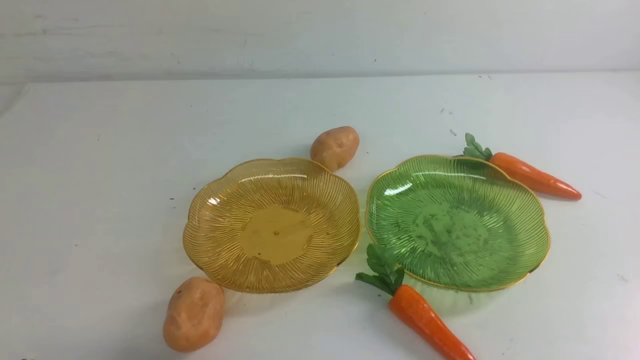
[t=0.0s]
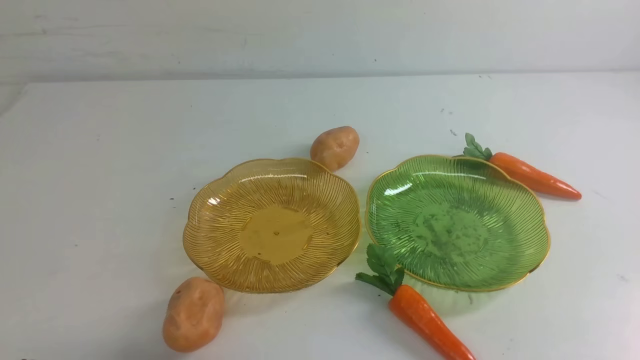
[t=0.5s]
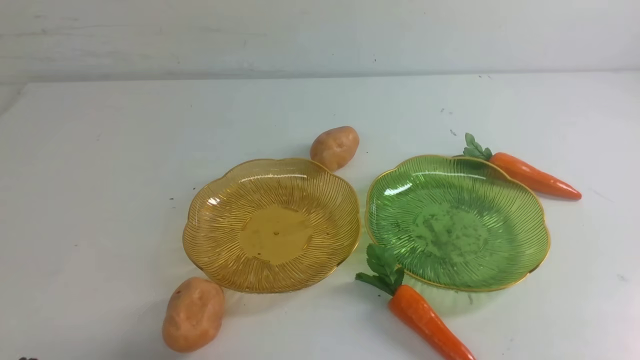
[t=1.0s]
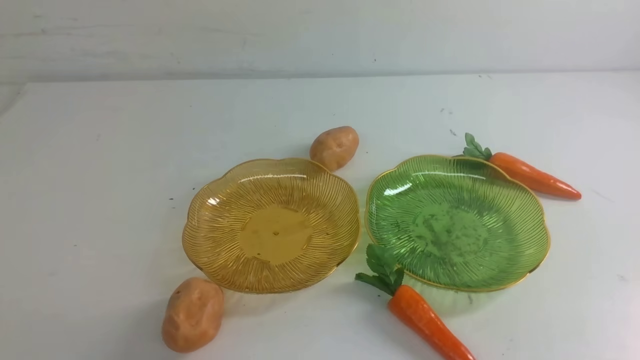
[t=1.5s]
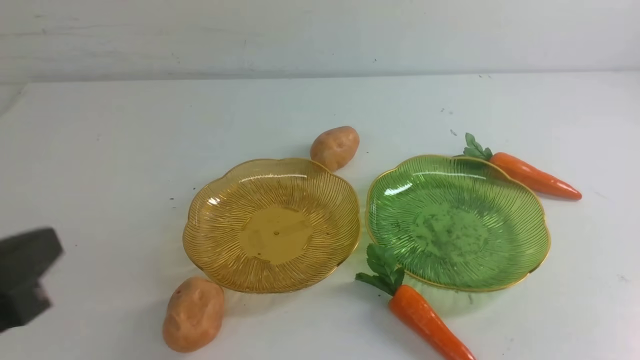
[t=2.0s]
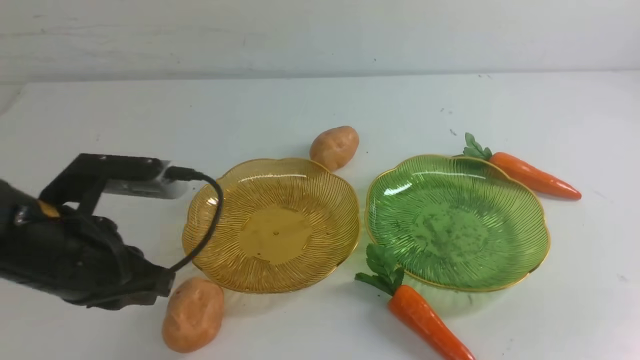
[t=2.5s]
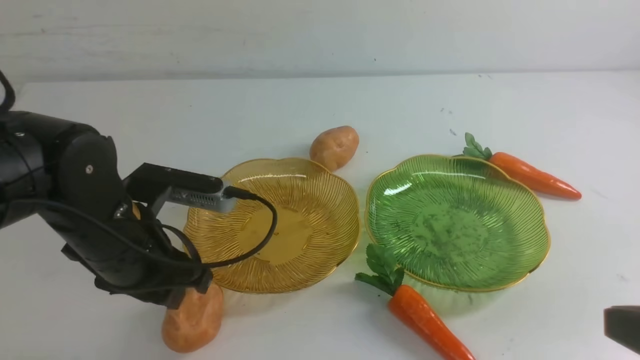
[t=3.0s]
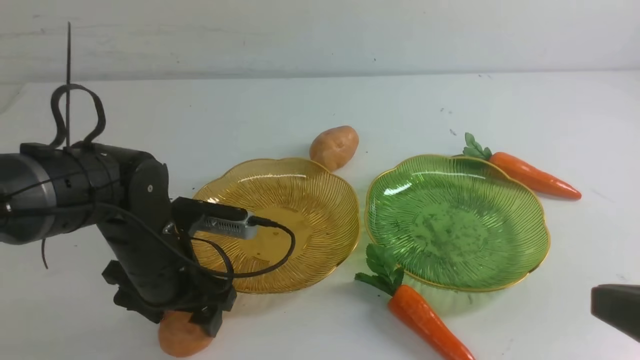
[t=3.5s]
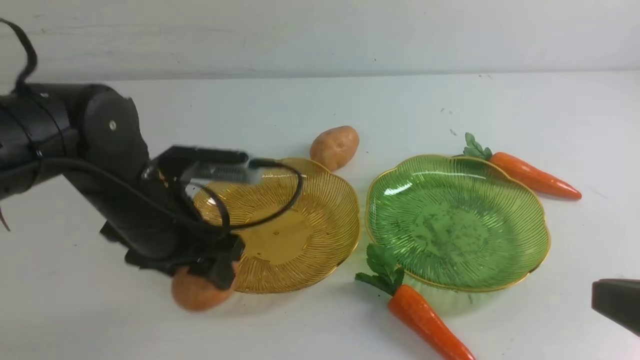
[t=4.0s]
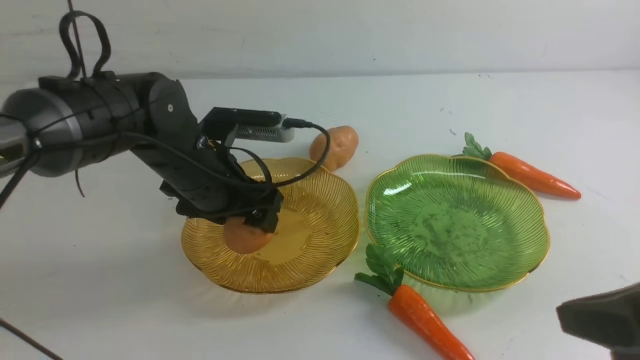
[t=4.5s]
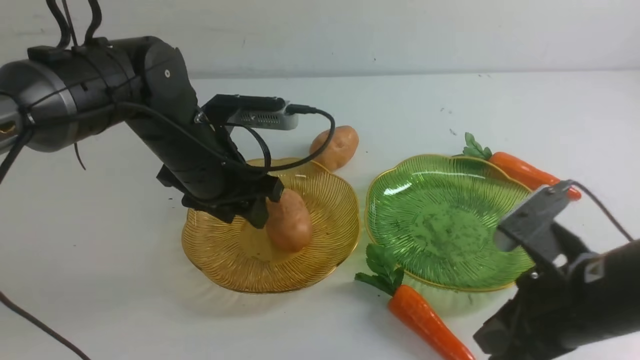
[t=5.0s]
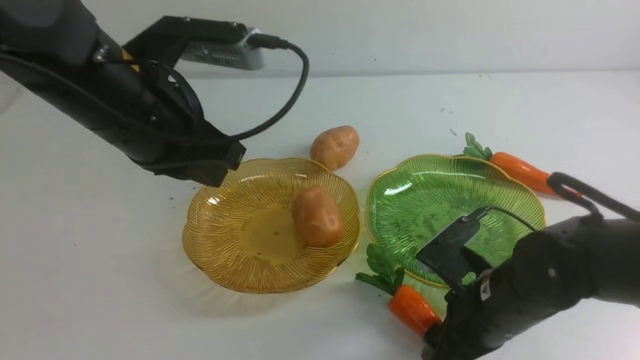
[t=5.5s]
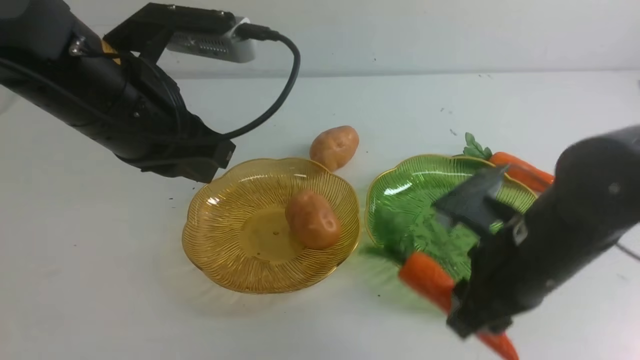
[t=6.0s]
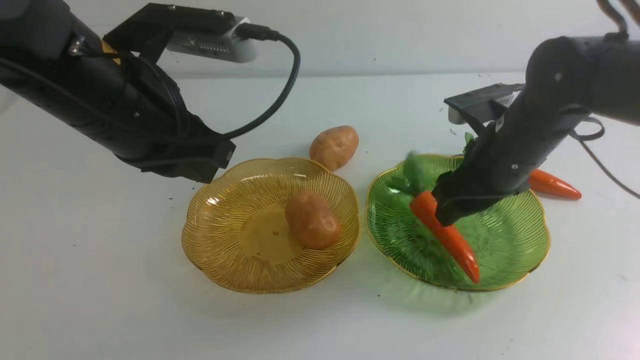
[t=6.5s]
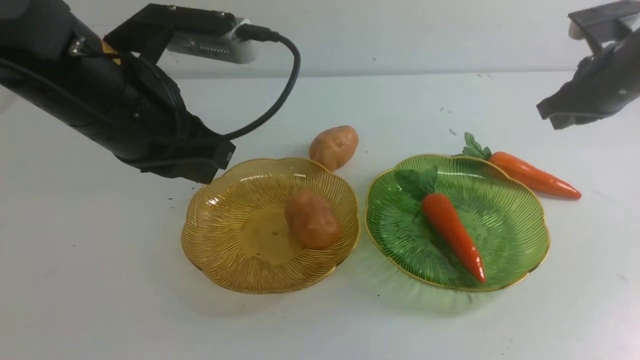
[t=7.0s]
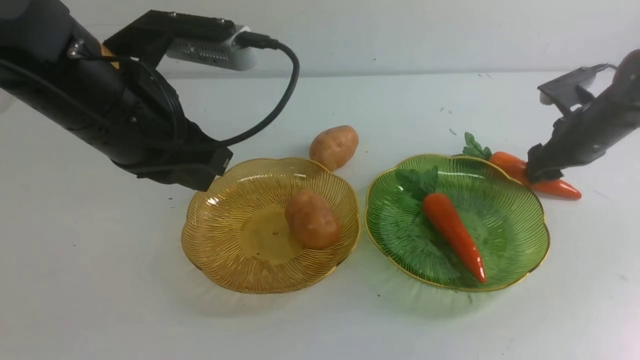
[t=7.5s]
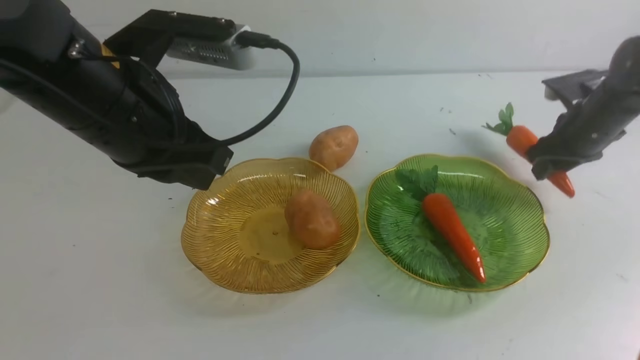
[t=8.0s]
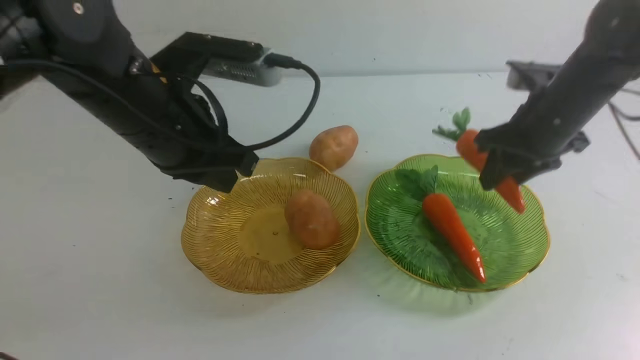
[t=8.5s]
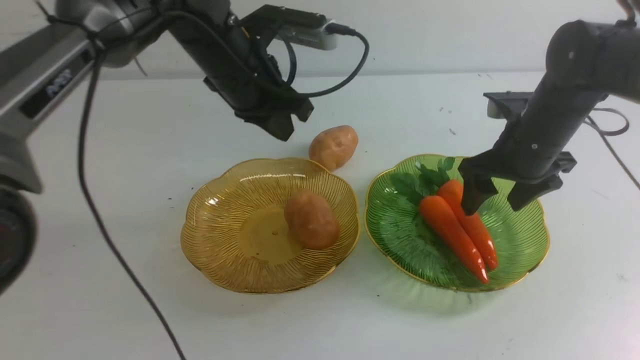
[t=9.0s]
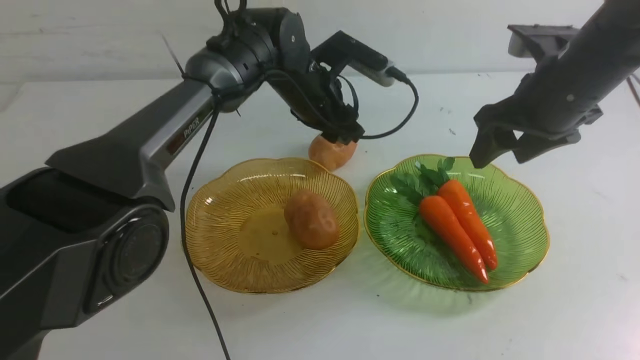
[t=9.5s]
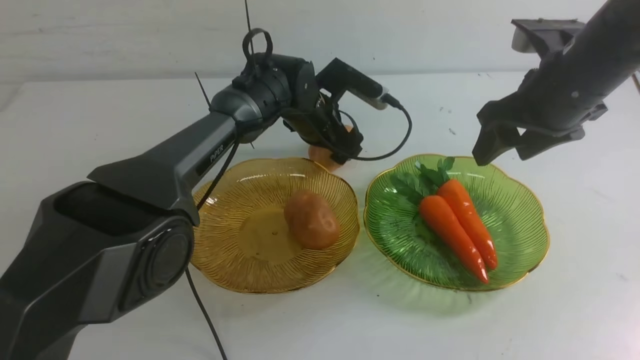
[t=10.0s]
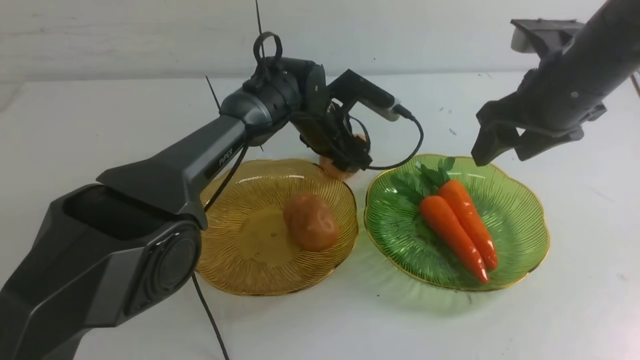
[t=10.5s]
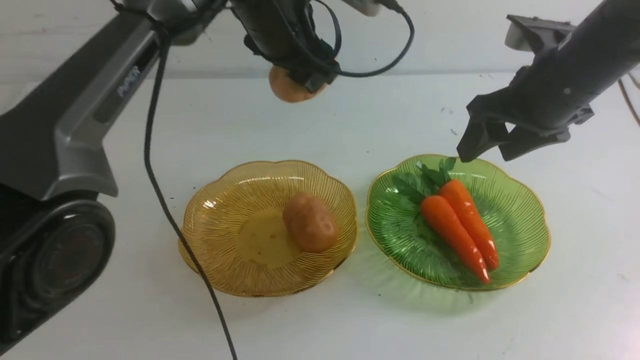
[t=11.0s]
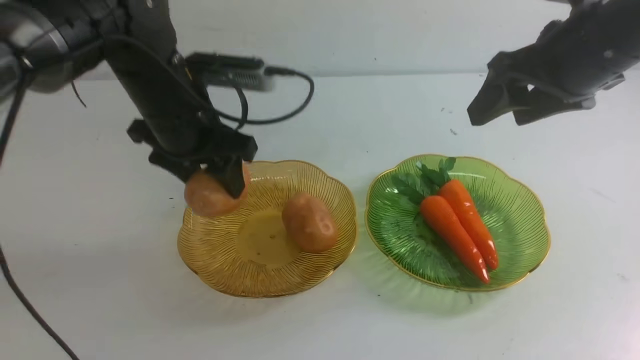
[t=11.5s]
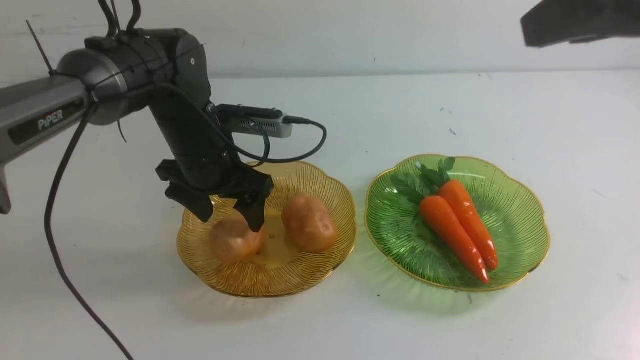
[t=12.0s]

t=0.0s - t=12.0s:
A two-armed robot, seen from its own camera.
Step, t=0.0s - t=4.5s: Grab a potato with your left arm and put it on the left plate.
Step, t=5.0s - t=8.5s: use the right arm to grab a carrot and put it into the right plate.
t=0.0s - t=2.0s: The left gripper goes roughly 15 cm upward and forward.
t=2.0s - t=4.0s: The left gripper is displaced forward and to the right by roughly 20 cm, and opens. The right gripper shifts approximately 15 cm forward, upward and to the left.
t=4.0s - t=6.0s: The right gripper moves forward, about 25 cm, and opens; the left gripper shifts about 15 cm upward and backward, and closes.
t=6.0s - t=8.0s: The right gripper moves approximately 10 cm to the right and comes back. The left gripper goes about 10 cm forward.
t=8.0s - t=10.0s: The left gripper travels forward, to the right and downward by about 20 cm, and opens up; the right gripper shifts approximately 10 cm upward.
t=10.0s - t=12.0s: The left gripper shifts some 35 cm backward, upward and to the left, and closes. Meanwhile the right gripper travels backward by some 30 cm, and closes its fingers.

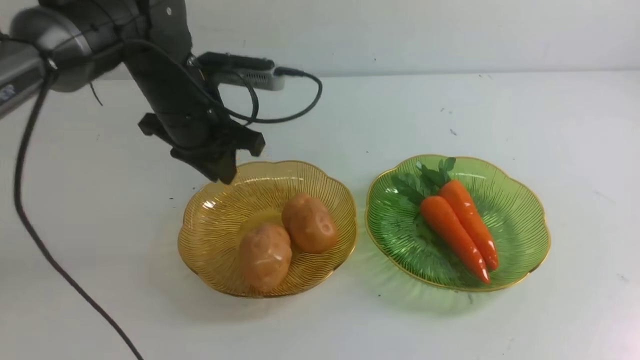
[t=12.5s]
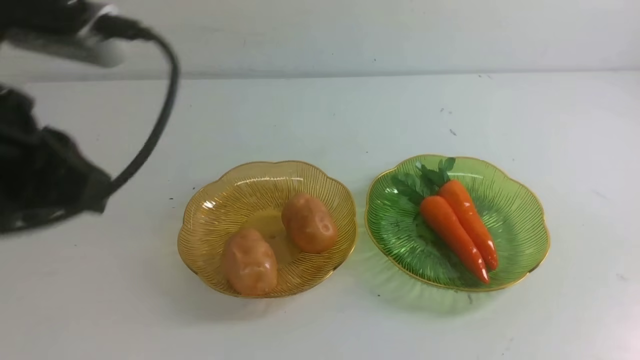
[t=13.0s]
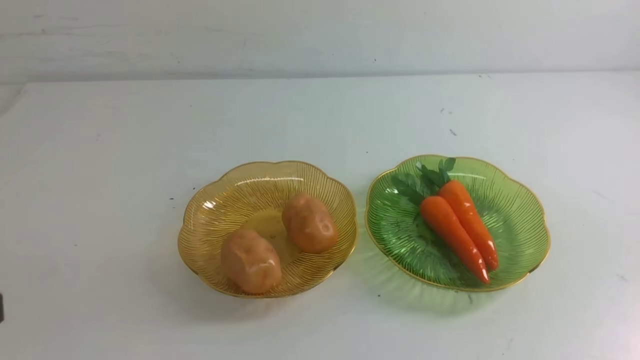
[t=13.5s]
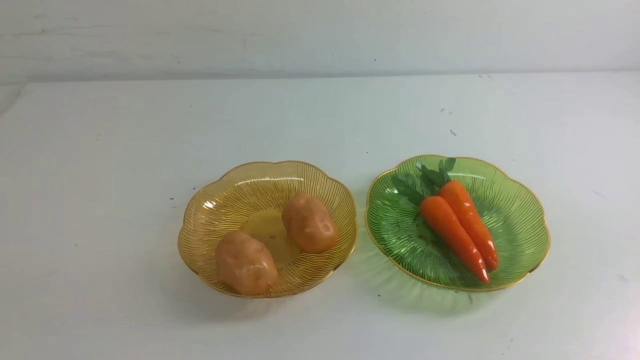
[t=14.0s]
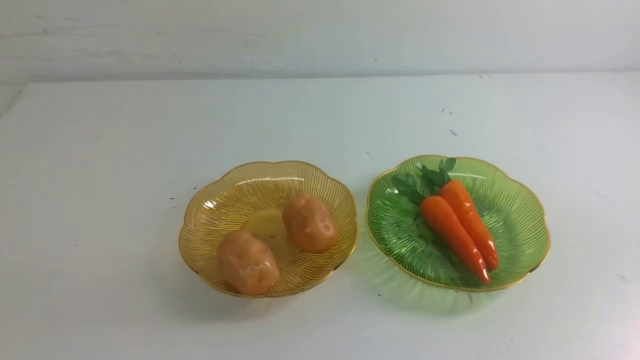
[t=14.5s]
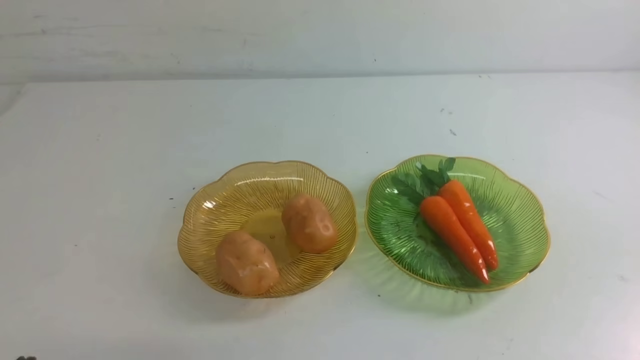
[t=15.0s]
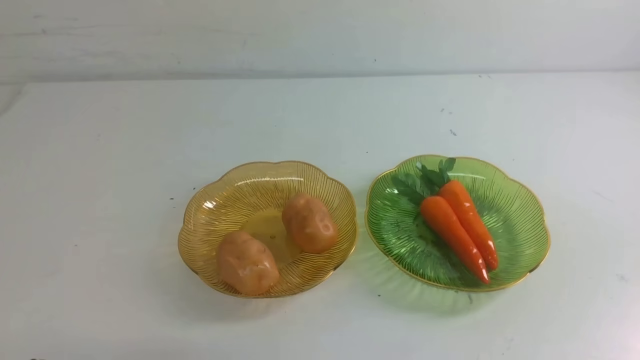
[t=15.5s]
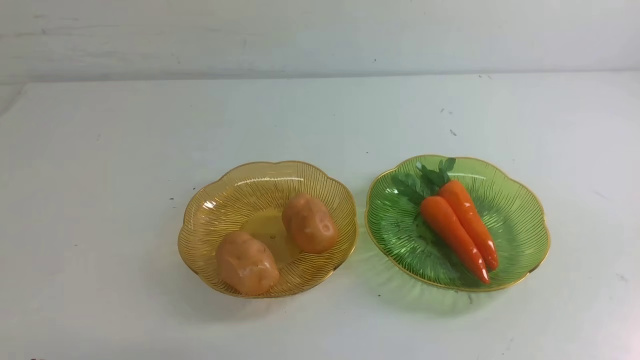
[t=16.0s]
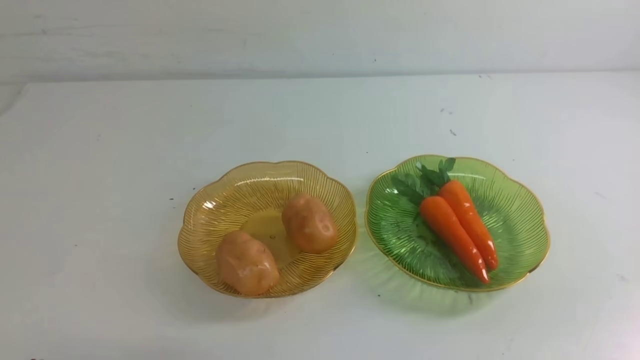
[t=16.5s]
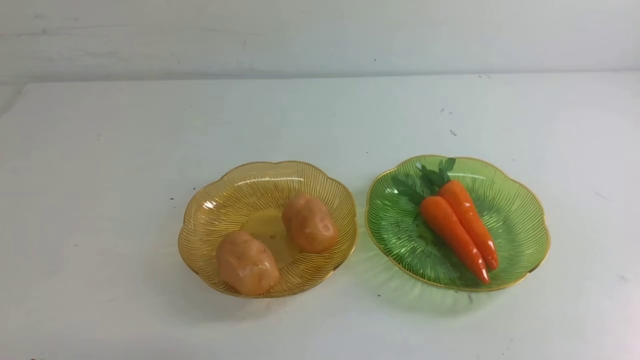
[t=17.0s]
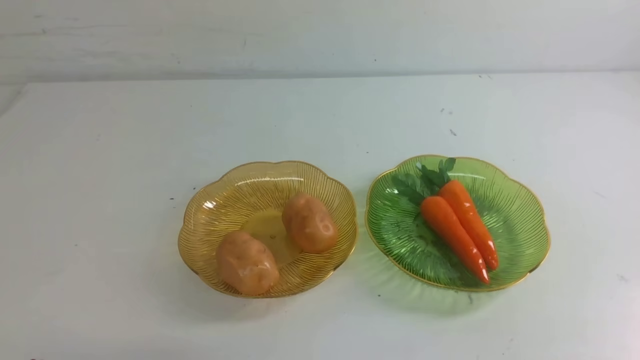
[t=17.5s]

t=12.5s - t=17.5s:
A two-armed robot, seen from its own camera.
t=12.5s - t=15.0s: The left gripper moves downward, approximately 20 cm.
